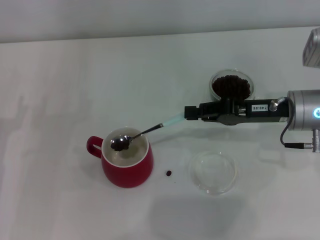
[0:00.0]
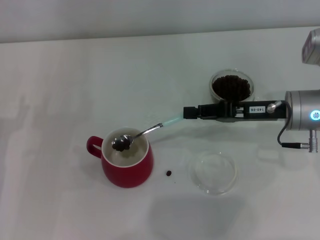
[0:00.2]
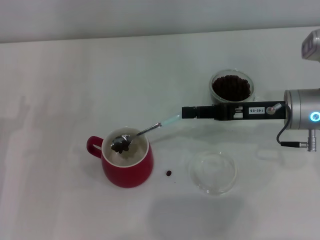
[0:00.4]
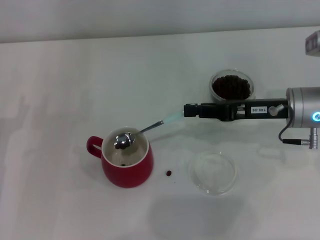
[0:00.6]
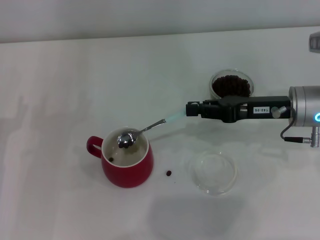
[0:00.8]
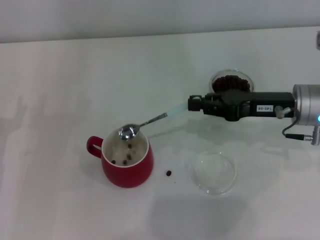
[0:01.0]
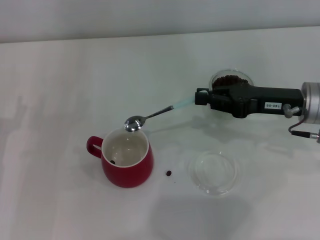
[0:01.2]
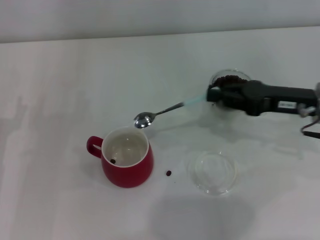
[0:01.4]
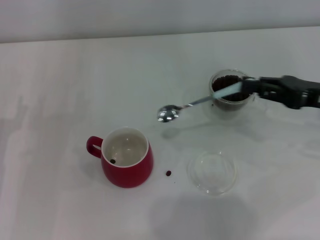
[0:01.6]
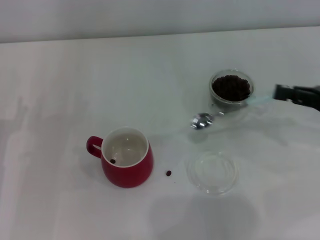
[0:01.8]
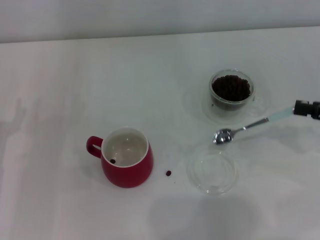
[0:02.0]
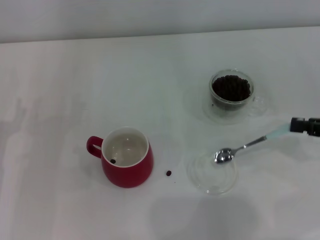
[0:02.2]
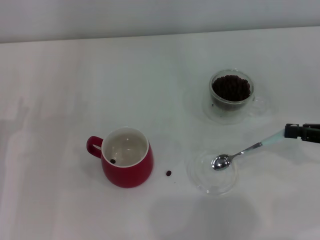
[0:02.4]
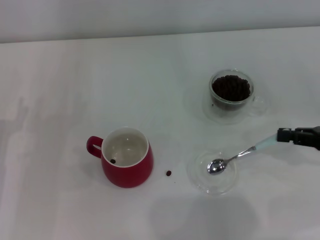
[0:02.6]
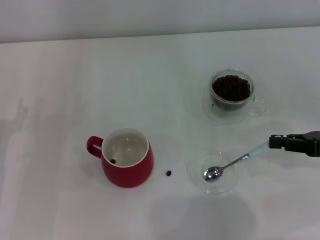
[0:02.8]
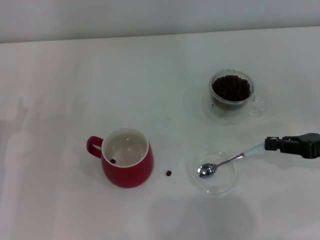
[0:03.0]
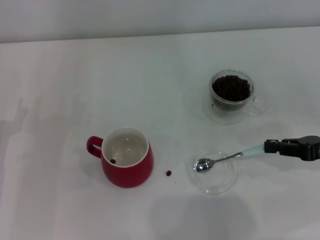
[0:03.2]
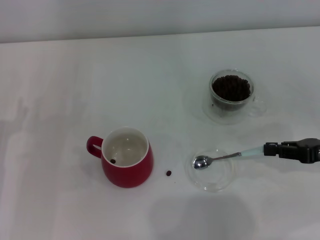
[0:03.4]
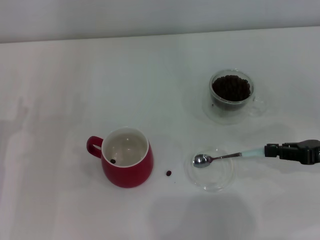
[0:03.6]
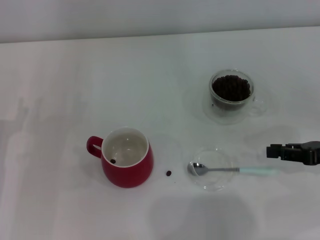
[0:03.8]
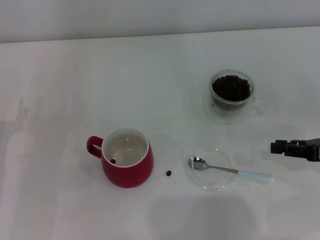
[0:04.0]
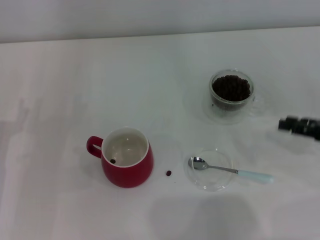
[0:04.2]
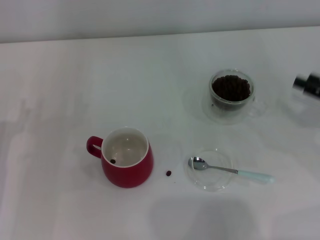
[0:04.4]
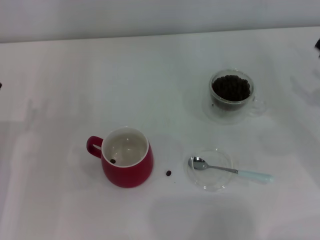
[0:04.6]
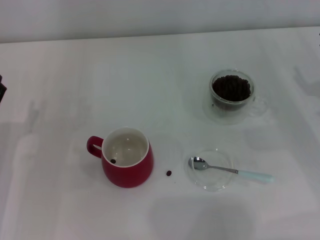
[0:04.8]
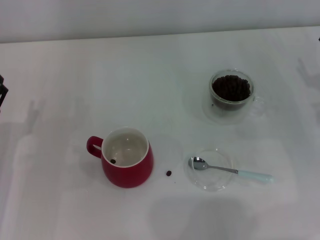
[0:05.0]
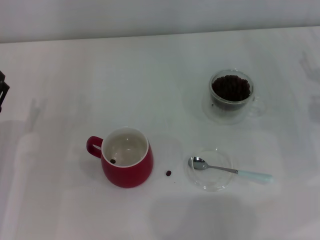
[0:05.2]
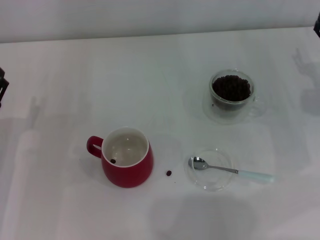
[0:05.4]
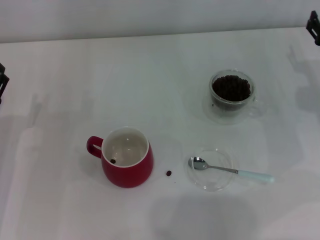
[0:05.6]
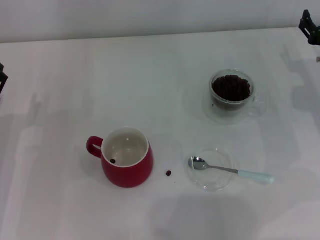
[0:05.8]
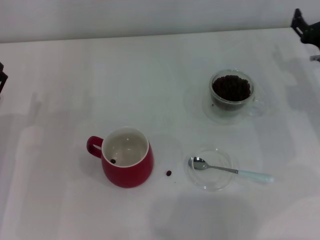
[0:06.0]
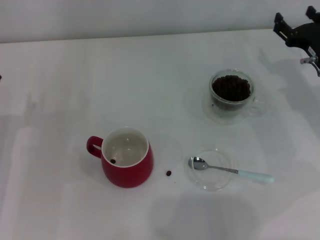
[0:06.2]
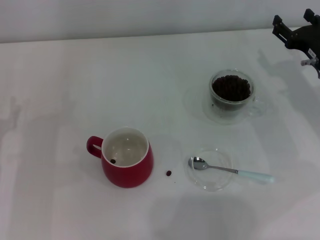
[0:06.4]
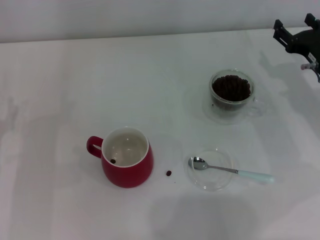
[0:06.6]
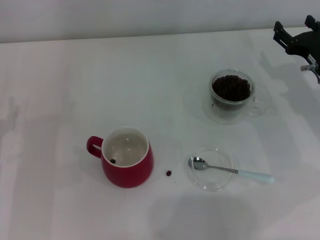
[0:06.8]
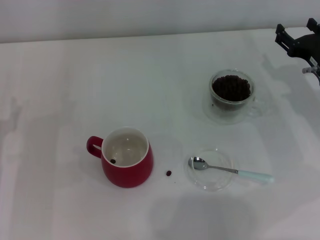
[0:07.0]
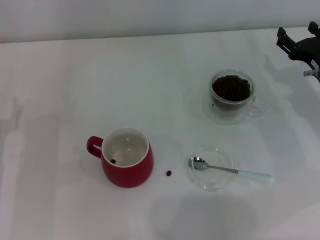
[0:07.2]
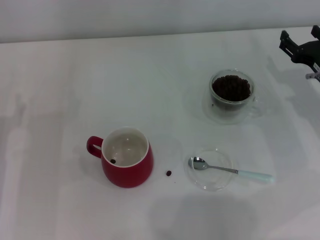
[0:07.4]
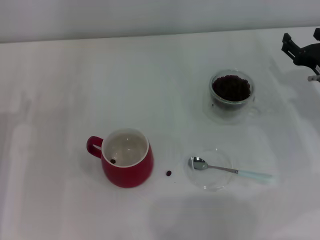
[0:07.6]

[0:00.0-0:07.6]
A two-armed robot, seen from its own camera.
Task of the whole recording: Use a blue spoon to take out the coffee beans from the glass and pour them into the red cup.
Step, 0:01.6 to 0:03.8: Place the spoon back in its original place with the right gripper.
0:00.0 to 0:01.6: The right gripper shifts some 5 cm to the right.
0:01.6 to 0:03.0: The right gripper moves some 5 cm.
0:03.0 to 0:04.6: The right gripper opens up.
0:04.6 to 0:06.0: The right gripper moves forward and to the left, about 10 cm.
0:06.0 to 0:07.6: The grippers move only a little.
